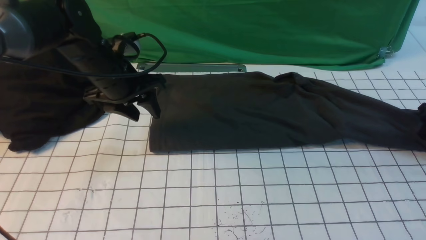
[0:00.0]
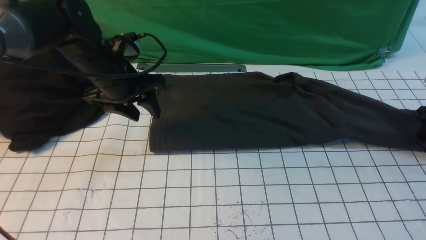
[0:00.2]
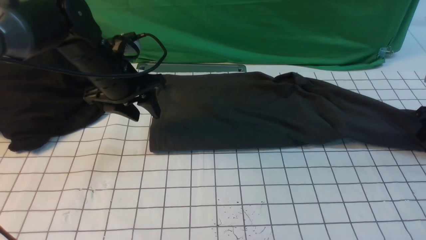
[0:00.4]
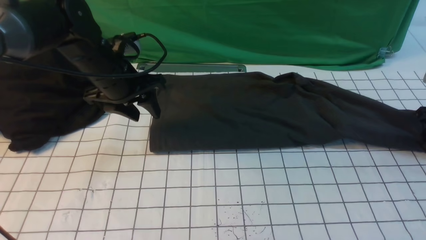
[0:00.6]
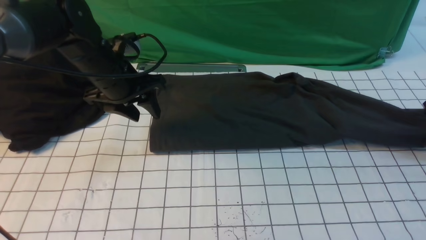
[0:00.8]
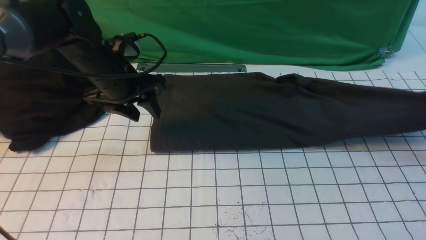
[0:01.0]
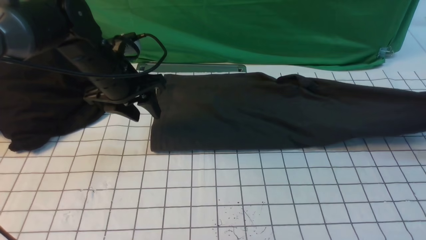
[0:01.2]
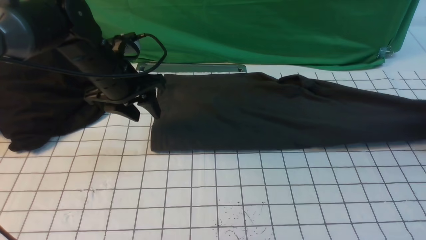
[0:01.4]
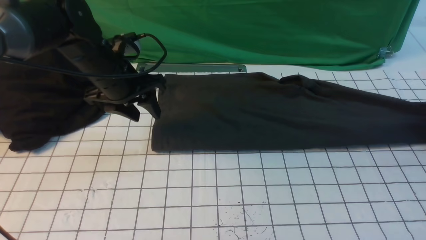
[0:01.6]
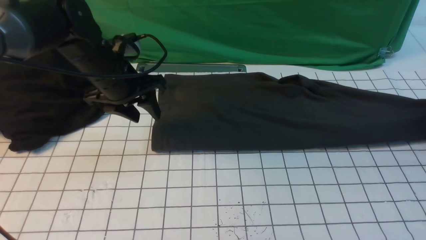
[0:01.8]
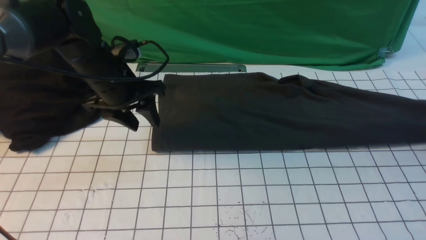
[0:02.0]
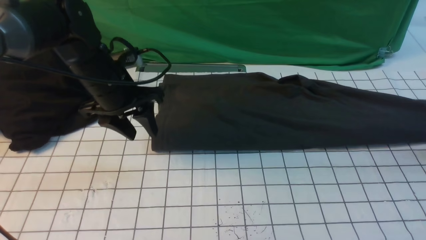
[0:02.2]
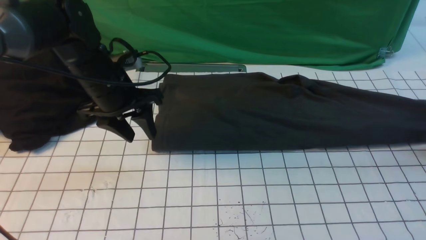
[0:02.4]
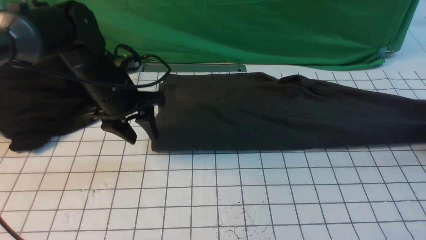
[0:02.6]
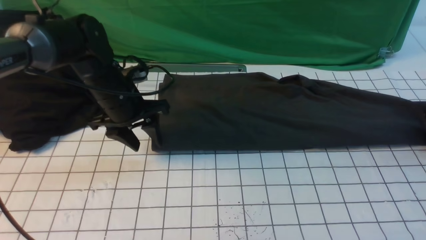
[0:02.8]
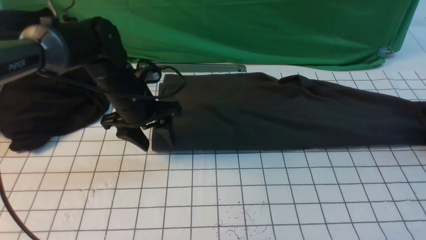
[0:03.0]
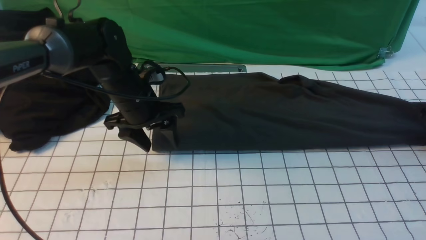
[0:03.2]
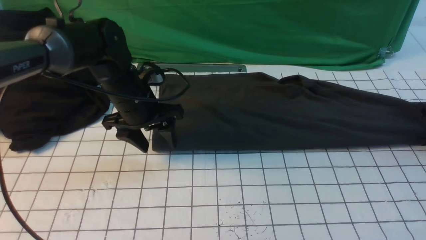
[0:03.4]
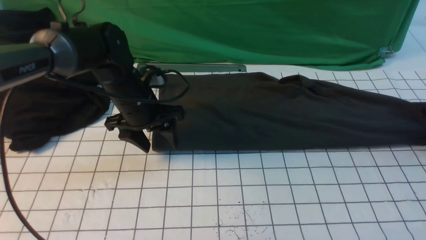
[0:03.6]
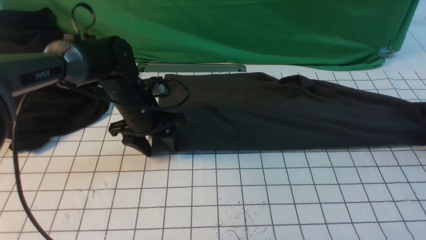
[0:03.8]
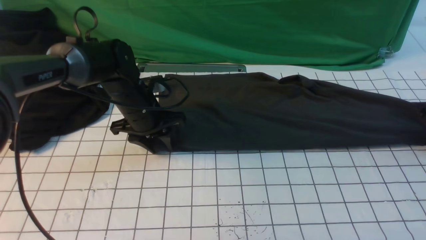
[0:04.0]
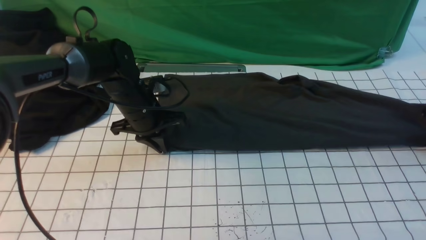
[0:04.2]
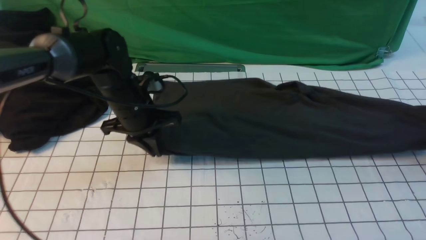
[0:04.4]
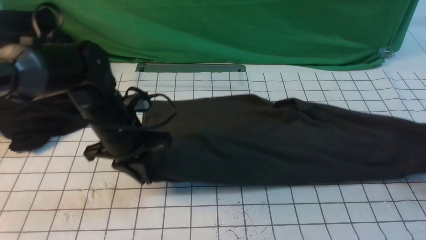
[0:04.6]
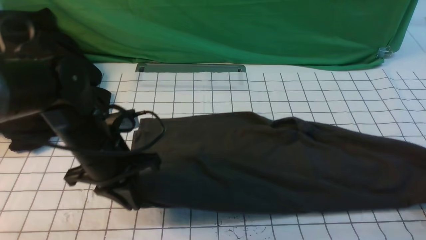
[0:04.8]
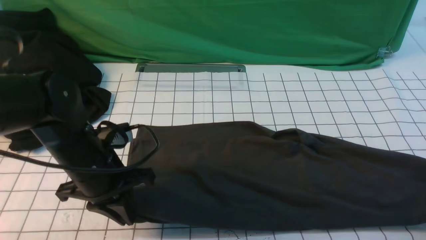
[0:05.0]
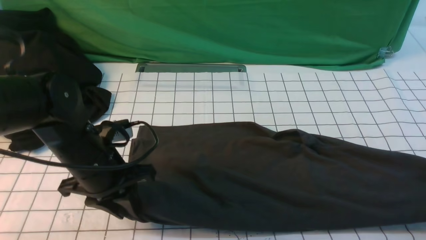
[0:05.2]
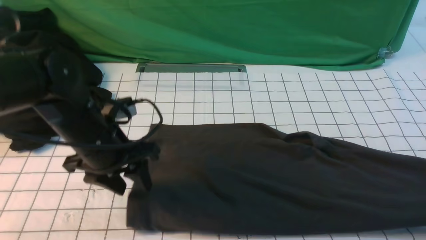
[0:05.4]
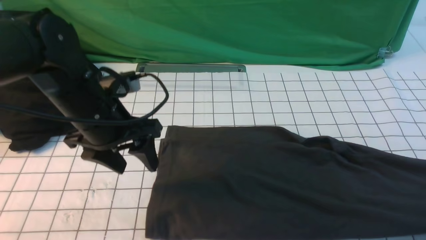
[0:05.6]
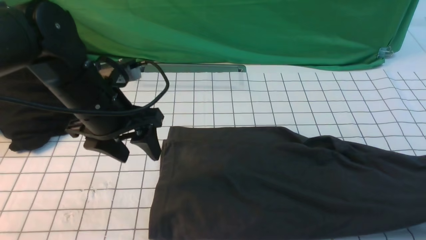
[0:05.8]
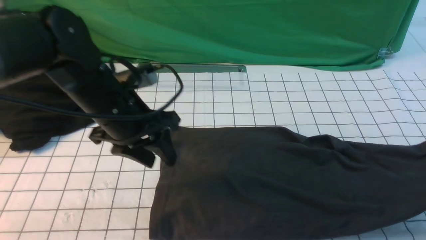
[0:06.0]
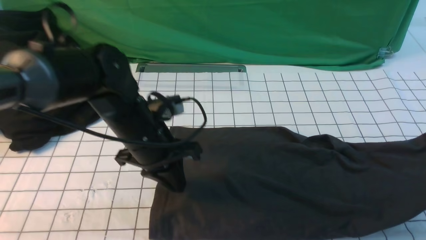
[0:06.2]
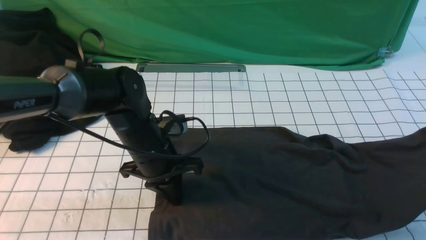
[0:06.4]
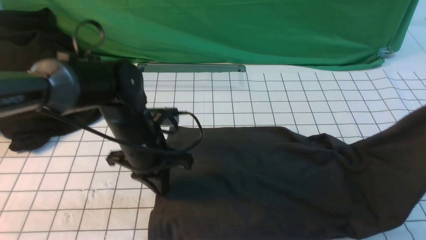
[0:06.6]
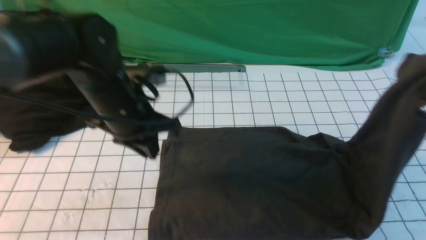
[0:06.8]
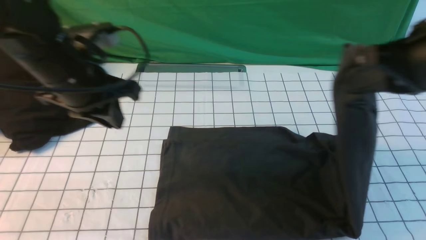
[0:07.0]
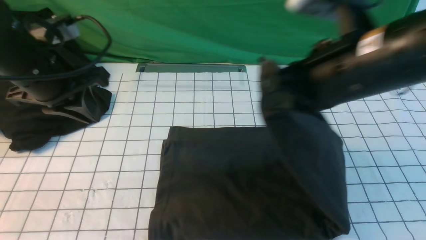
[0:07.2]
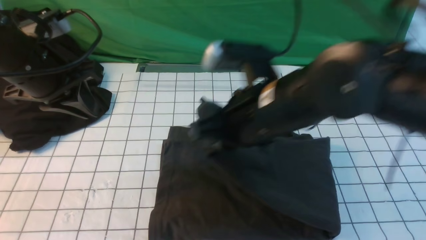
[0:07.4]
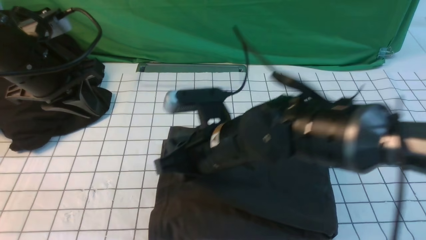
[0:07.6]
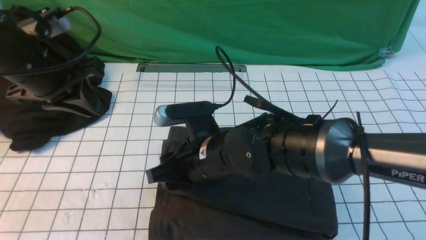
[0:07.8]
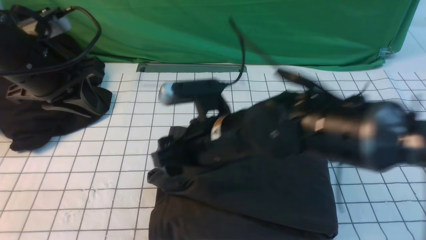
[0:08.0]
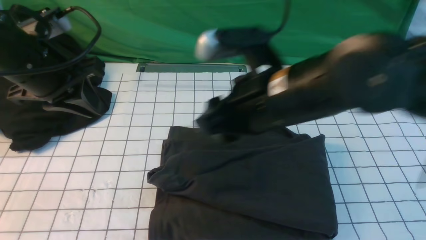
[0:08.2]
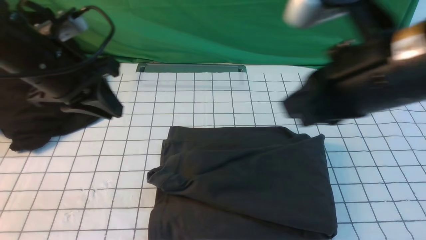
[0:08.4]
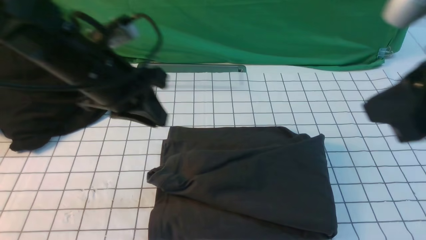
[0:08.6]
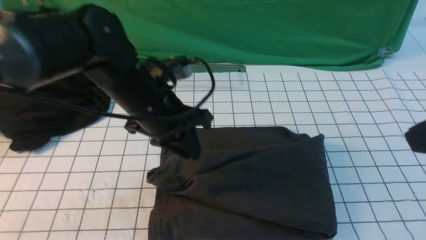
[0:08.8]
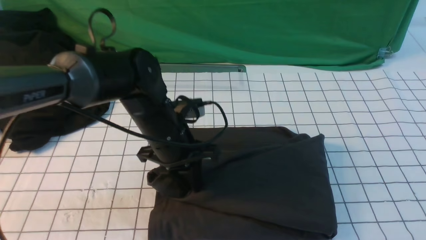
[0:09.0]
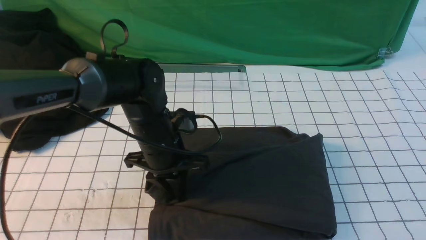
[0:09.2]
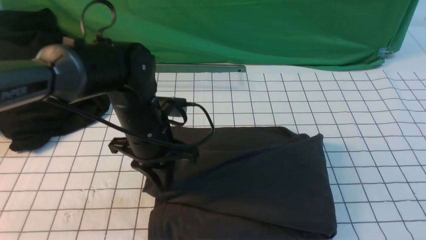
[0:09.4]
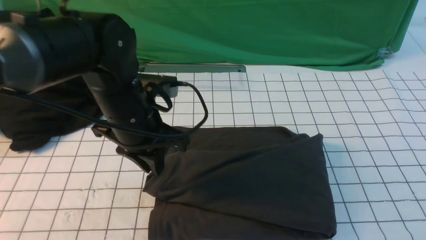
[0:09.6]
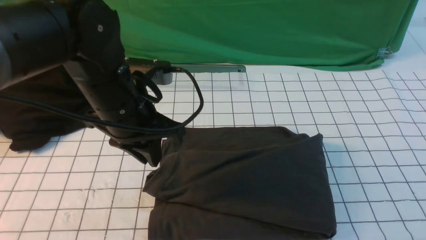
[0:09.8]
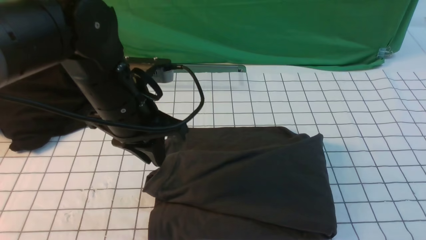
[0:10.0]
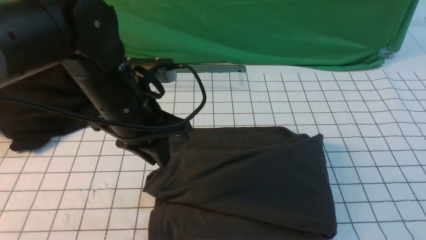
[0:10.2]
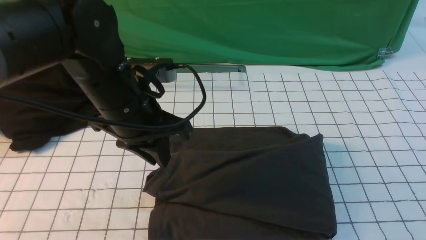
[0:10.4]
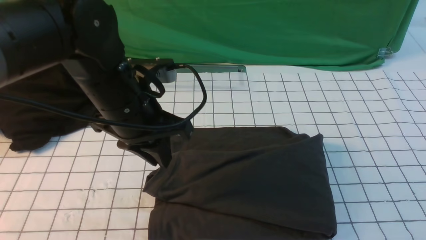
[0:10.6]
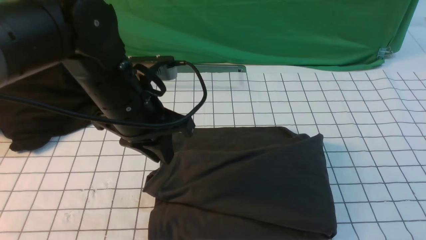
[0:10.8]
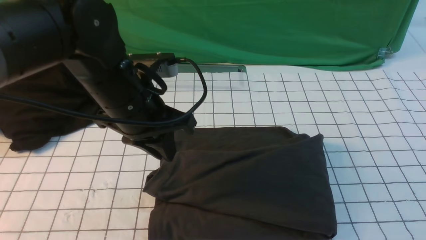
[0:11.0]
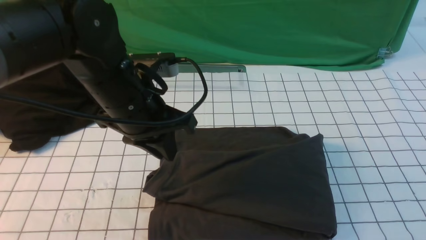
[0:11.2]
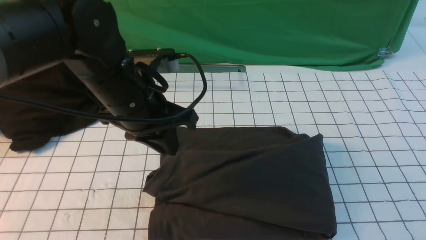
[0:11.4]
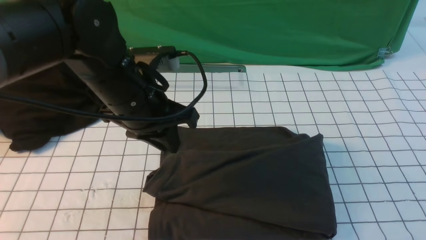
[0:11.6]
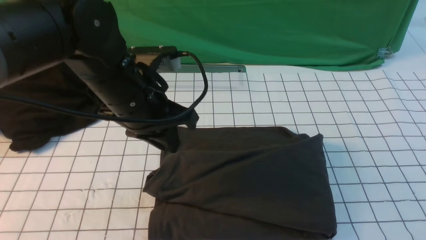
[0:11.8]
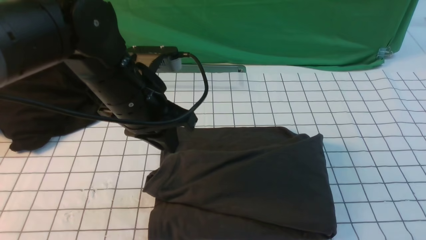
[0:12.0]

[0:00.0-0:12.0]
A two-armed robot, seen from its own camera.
Step, 0:00.0 to 0:05.8: use the right arm to clamp the right edge of the fabric.
Step, 0:06.0 to 0:08.0: use the right arm to drag the right edge of the fabric to the left and folds it over the left edge.
0:00.0 to 0:01.6: The right gripper closes, then opens again.
0:01.6 to 0:03.0: The right gripper opens and closes again.
0:03.0 to 0:04.4: The left gripper closes its fingers; the right gripper changes place by approximately 5 cm, and closes up.
0:04.4 to 0:06.0: The left gripper is displaced backward and upward by some 10 cm, and opens up; the right gripper moves backward and upward, roughly 15 cm.
0:06.0 to 0:07.6: The right gripper heads to the left, covering some 40 cm. The left gripper moves to the left and upward, some 15 cm.
0:07.6 to 0:09.0: The right gripper is displaced to the right, upward and backward by approximately 35 cm, and opens and closes again, while the left gripper heads to the right and downward, covering roughly 20 cm.
0:09.0 to 0:10.4: The right gripper goes approximately 15 cm downward and backward. The left gripper is displaced upward by about 10 cm.
0:10.4 to 0:12.0: The right gripper travels downward by approximately 10 cm.

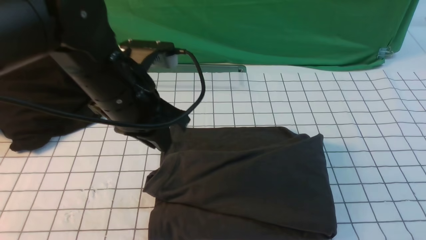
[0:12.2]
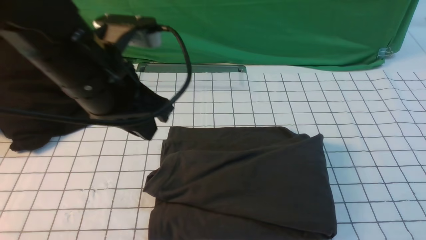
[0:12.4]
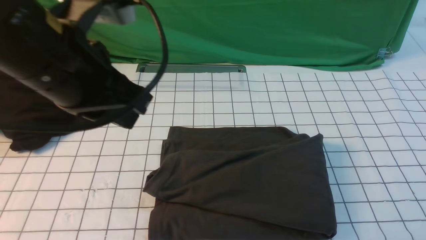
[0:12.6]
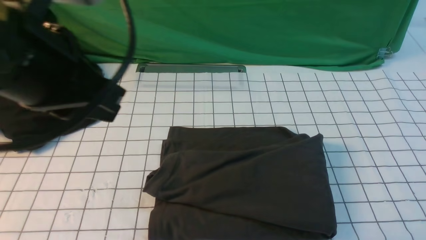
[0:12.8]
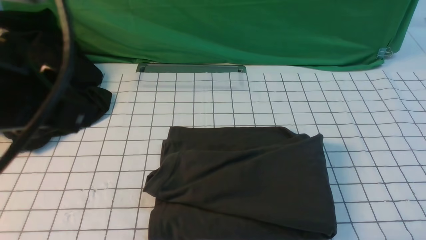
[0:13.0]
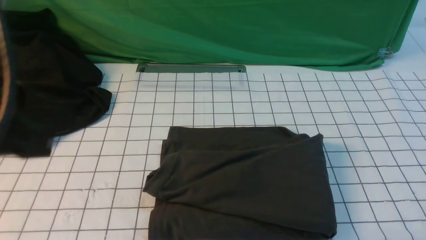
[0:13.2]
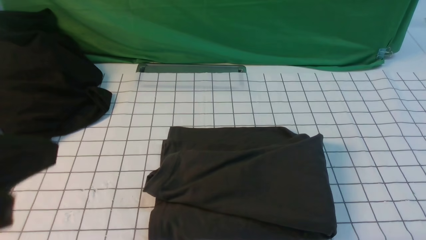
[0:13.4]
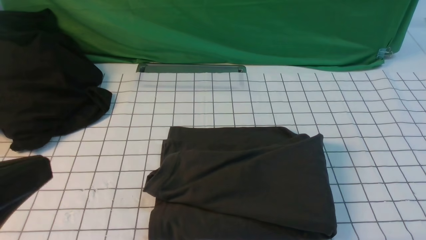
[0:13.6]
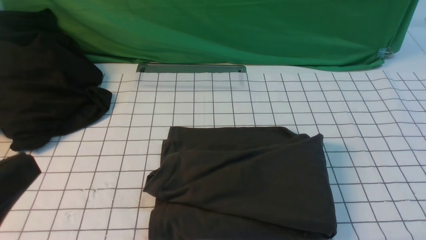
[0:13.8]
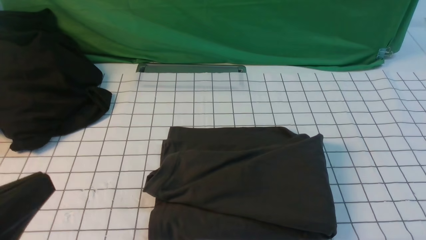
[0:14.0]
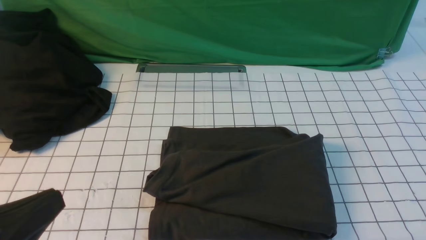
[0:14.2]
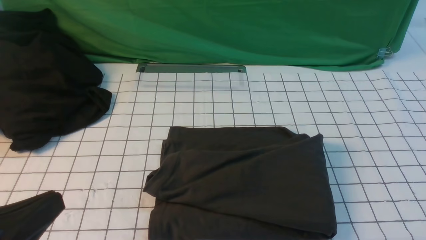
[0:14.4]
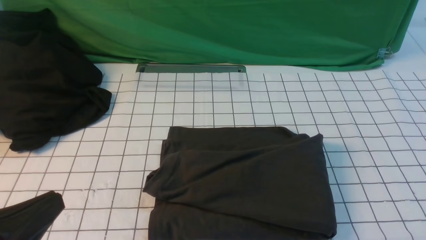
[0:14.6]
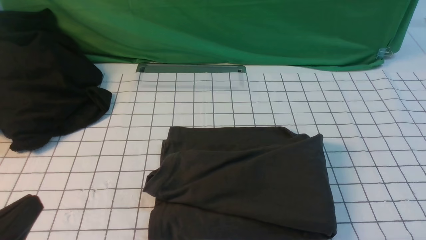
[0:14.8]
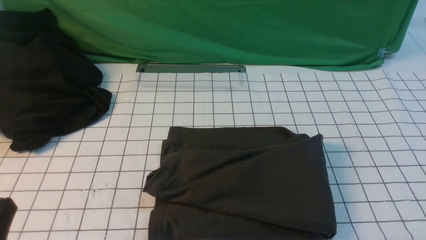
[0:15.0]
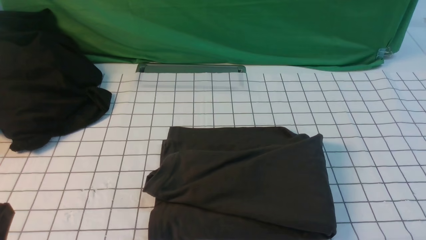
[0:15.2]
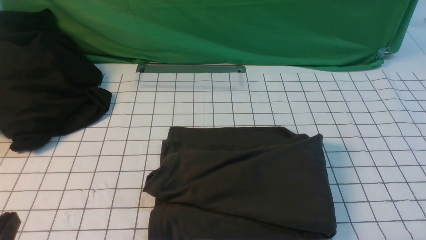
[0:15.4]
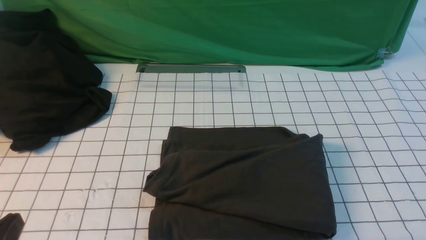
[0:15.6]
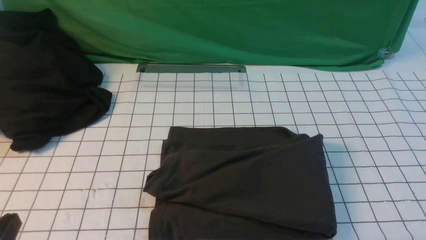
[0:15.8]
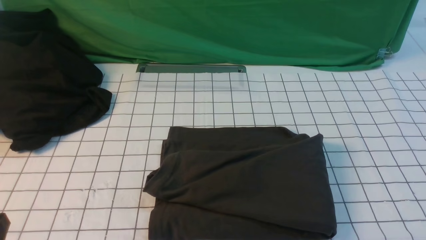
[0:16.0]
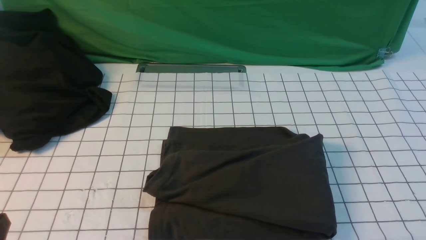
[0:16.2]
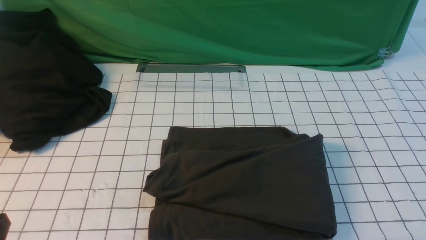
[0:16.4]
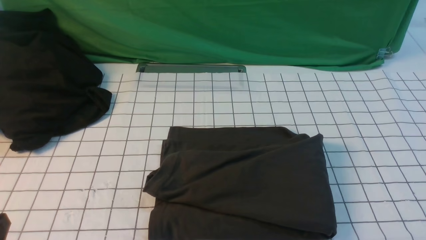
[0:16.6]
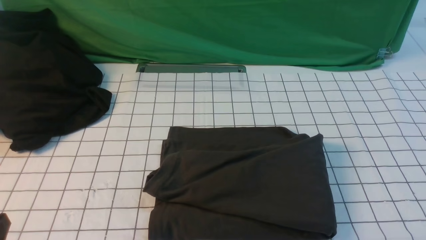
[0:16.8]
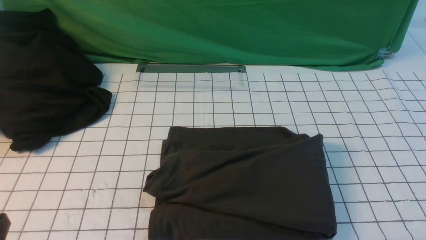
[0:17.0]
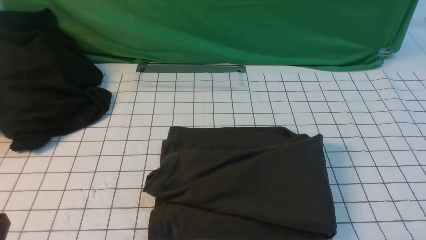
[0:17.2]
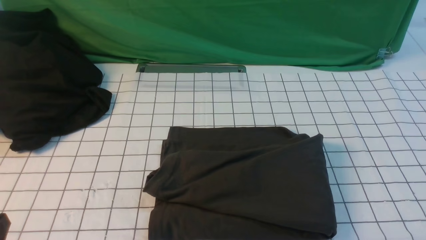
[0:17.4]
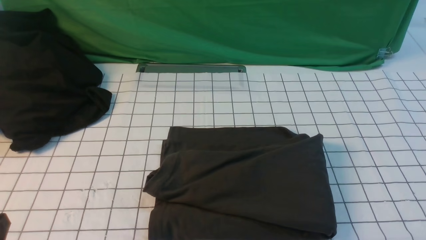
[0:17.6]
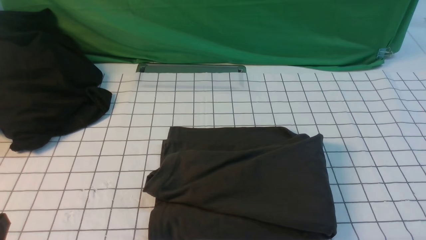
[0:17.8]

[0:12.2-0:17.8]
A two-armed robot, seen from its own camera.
0:12.2 to 0:13.6: The left gripper shifts some 25 cm backward and to the left.
0:13.6 to 0:15.0: The left gripper heads downward, covering some 15 cm.
0:16.4 to 0:17.8: Neither gripper changes place.
